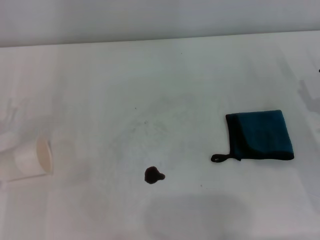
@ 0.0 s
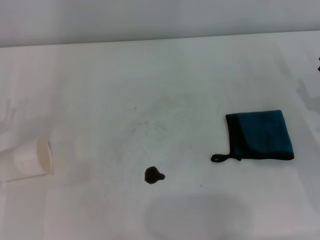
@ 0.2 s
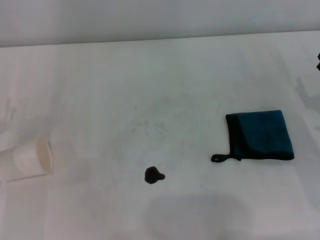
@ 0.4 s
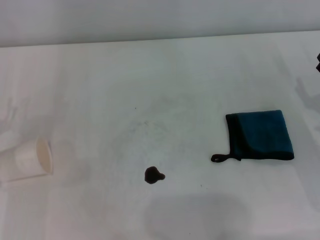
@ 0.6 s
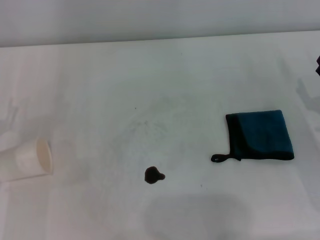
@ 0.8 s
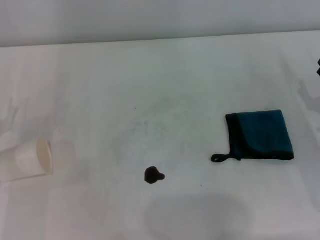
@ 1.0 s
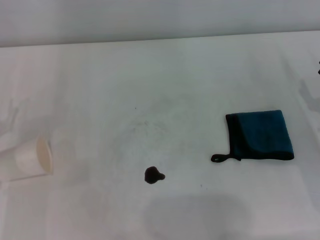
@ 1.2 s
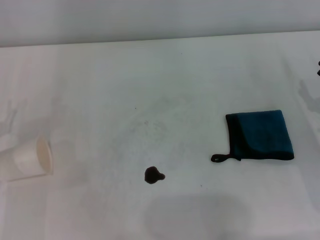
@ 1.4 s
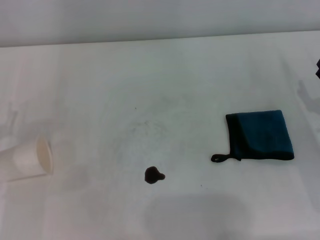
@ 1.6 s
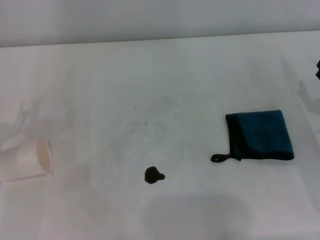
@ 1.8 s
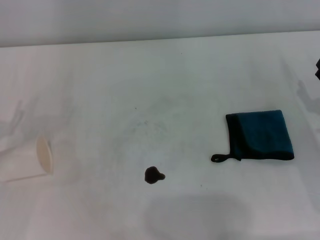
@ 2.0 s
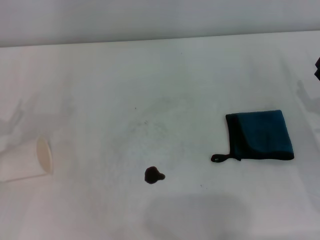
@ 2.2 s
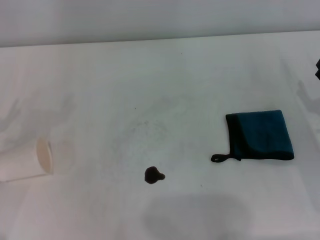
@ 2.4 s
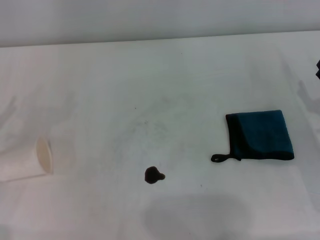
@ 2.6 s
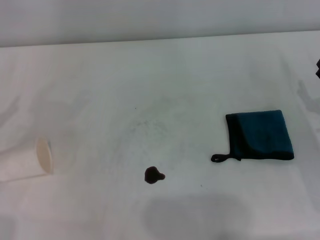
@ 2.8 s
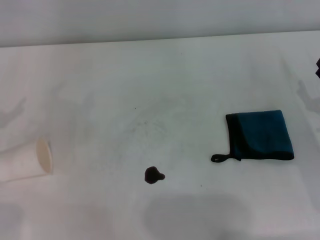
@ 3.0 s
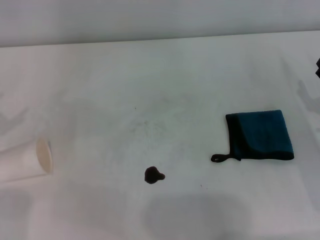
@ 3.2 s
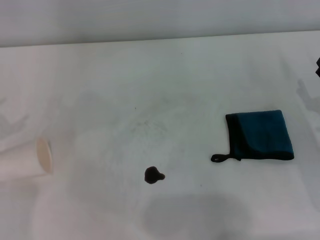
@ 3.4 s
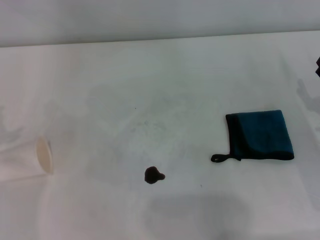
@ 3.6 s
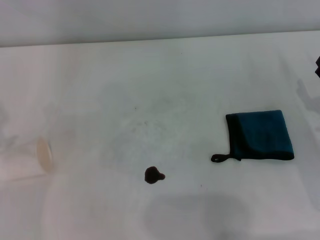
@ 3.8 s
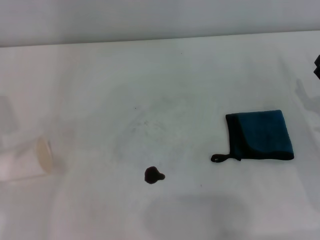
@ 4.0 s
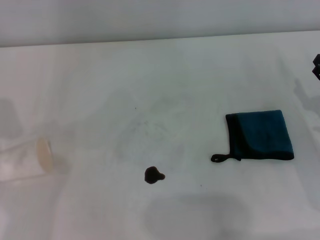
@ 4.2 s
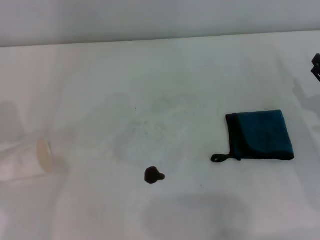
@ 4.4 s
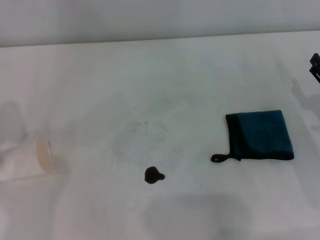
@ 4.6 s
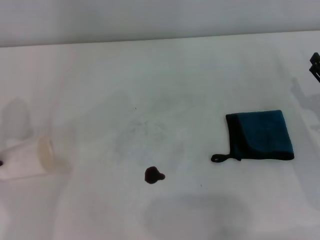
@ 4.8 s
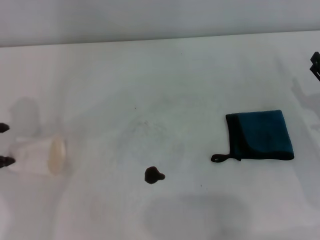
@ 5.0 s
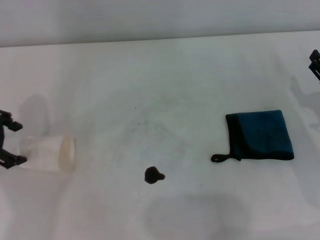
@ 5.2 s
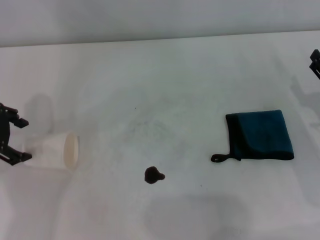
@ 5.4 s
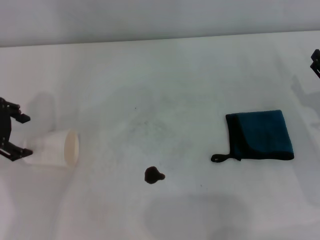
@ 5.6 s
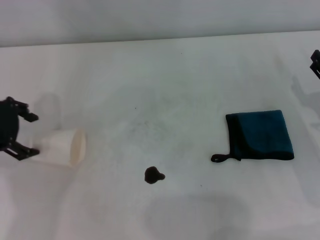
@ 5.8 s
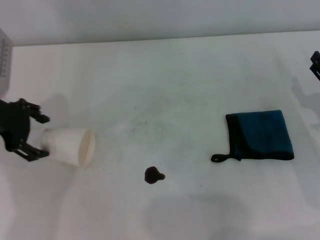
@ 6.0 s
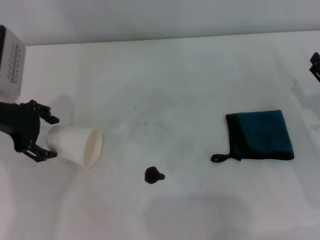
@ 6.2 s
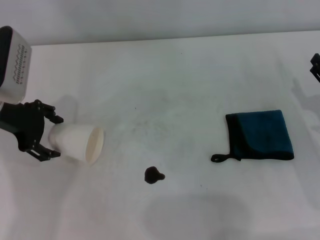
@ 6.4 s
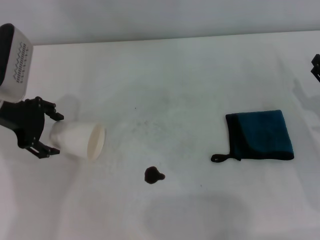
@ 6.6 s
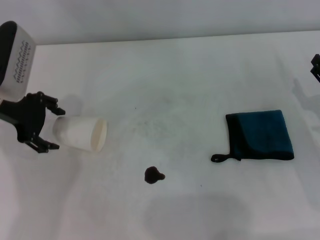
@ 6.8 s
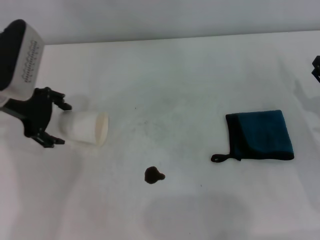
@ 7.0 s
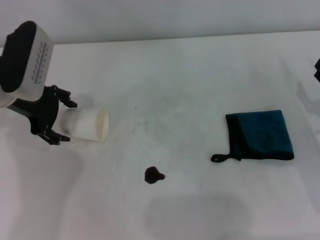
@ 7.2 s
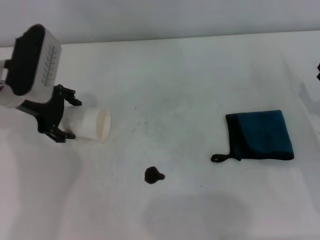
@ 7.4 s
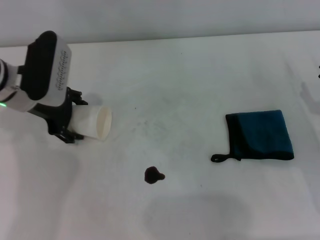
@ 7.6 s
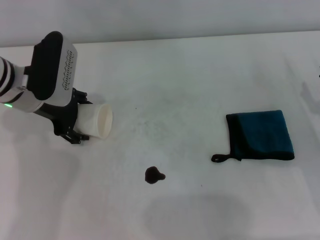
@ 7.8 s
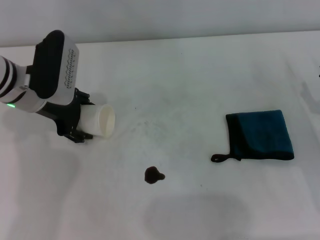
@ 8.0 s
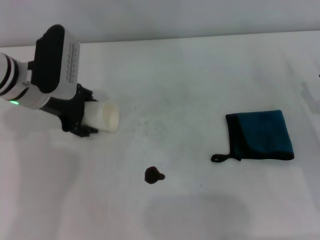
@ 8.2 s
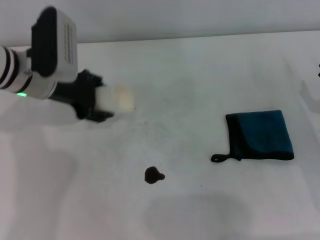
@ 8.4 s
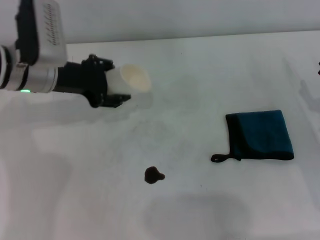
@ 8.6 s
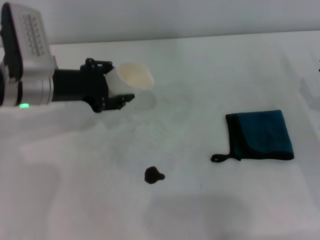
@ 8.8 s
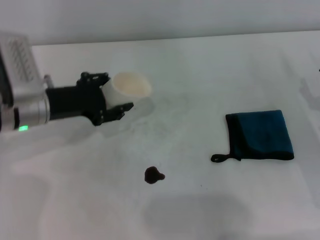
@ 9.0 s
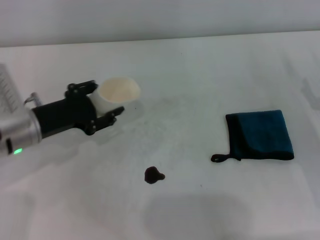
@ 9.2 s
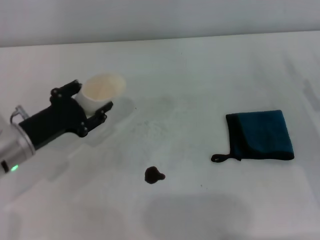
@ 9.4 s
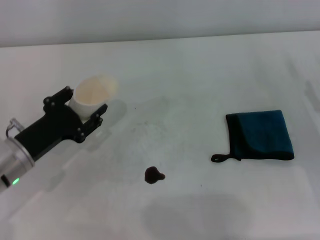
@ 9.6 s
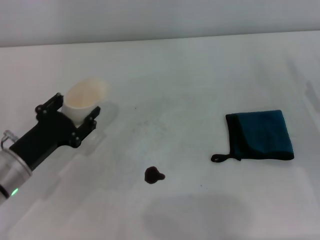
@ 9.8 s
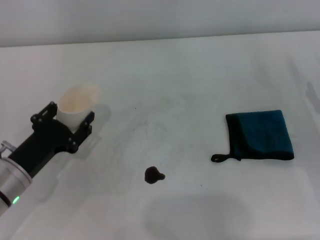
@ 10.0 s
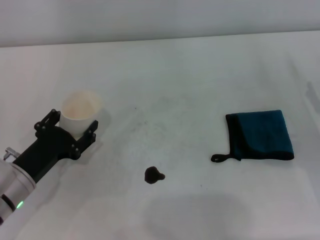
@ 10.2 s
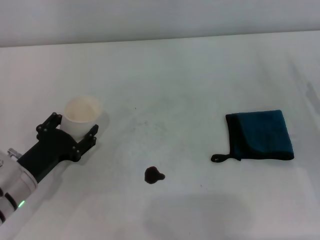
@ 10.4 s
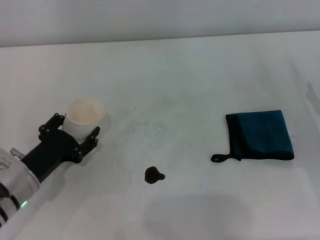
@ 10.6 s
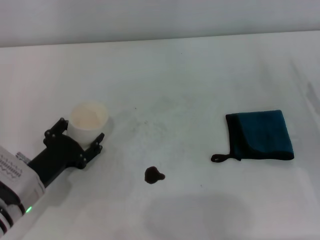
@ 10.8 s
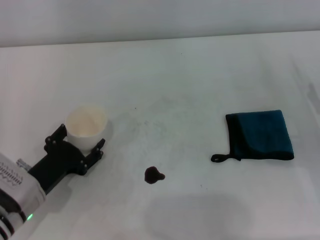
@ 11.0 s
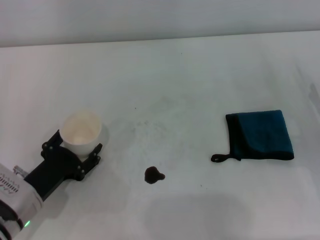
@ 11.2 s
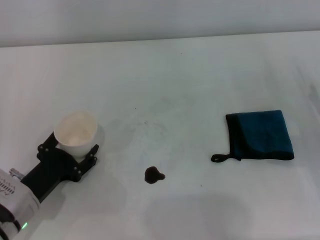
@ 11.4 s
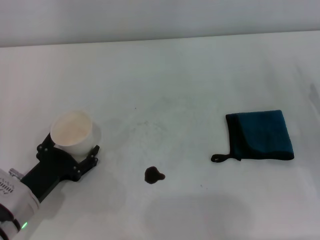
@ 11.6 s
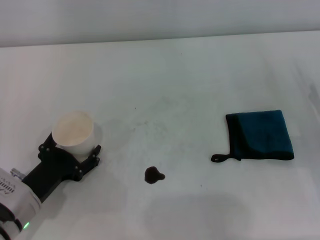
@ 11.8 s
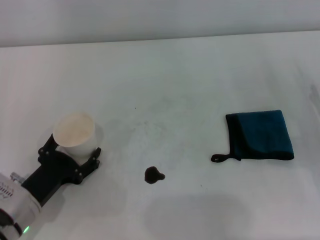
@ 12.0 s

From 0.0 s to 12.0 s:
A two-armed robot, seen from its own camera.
Step, from 0.0 s to 7.8 s: Grasp the paper cup with the left gripper.
Step, from 8.0 s to 11.8 s: Stand the paper cup upright with the left gripper.
From 0.0 s to 1.6 s: Neither gripper changes place.
From 4.4 s to 6.0 s: The left gripper travels to the right by about 10 cm.
From 6.0 s to 7.6 s: The left gripper is displaced to the right by about 5 cm.
From 7.6 s to 9.0 s: The left gripper closes its fingers.
From 9.0 s to 10.4 s: The left gripper shifts roughly 15 cm backward and downward.
From 10.4 s to 12.0 s: The left gripper opens up.

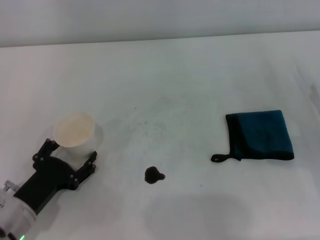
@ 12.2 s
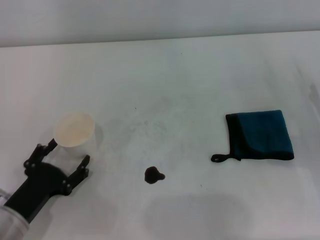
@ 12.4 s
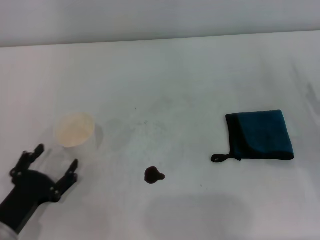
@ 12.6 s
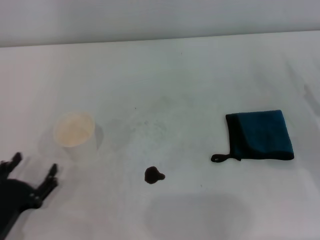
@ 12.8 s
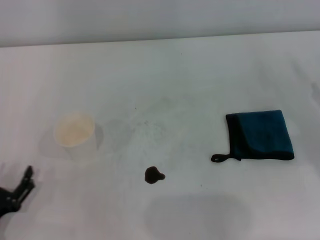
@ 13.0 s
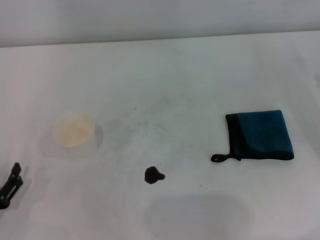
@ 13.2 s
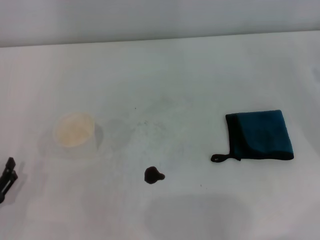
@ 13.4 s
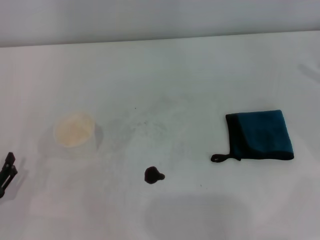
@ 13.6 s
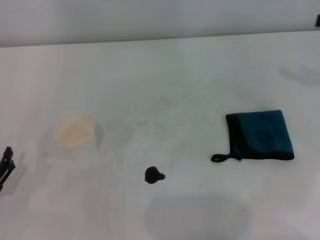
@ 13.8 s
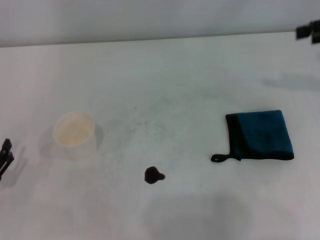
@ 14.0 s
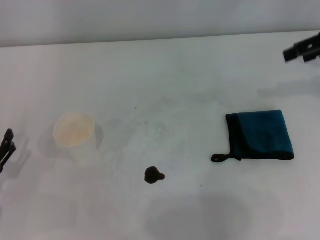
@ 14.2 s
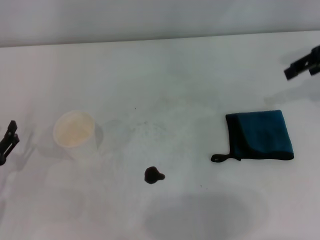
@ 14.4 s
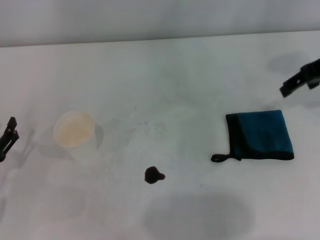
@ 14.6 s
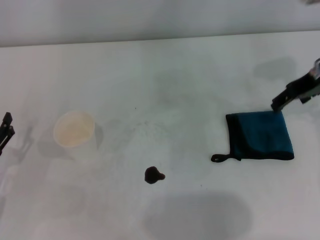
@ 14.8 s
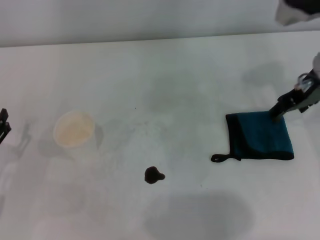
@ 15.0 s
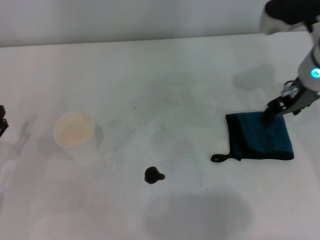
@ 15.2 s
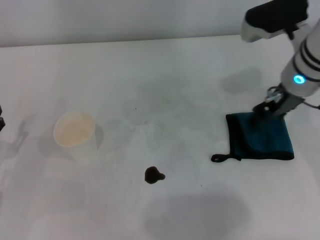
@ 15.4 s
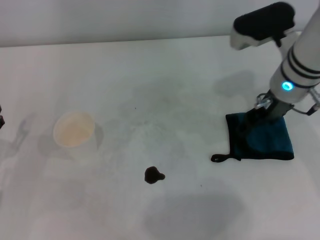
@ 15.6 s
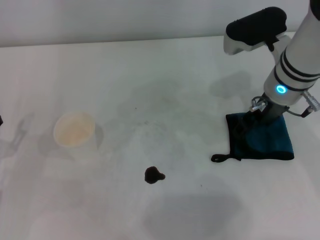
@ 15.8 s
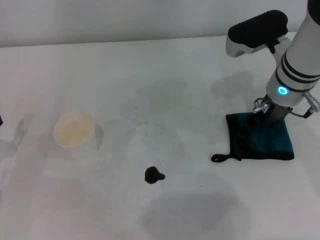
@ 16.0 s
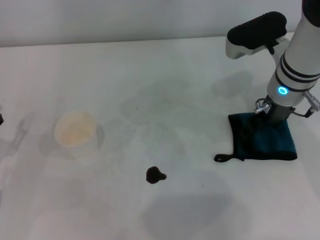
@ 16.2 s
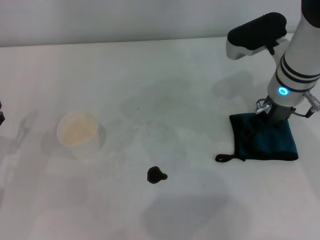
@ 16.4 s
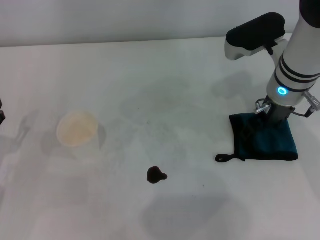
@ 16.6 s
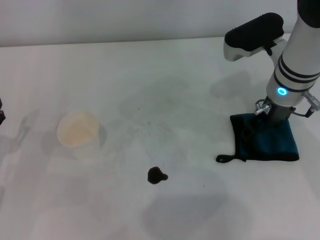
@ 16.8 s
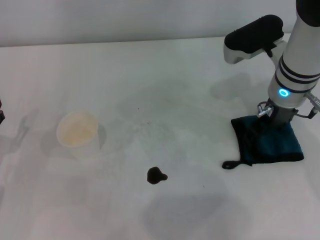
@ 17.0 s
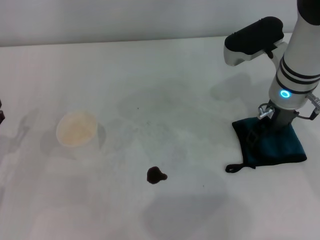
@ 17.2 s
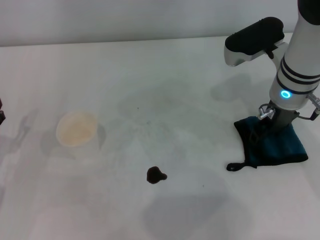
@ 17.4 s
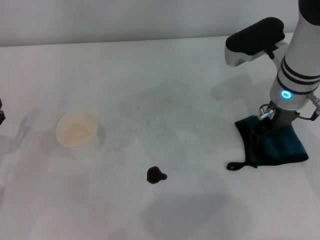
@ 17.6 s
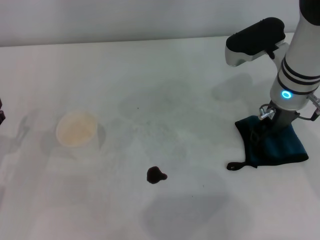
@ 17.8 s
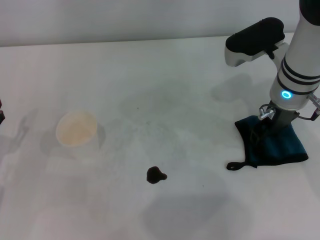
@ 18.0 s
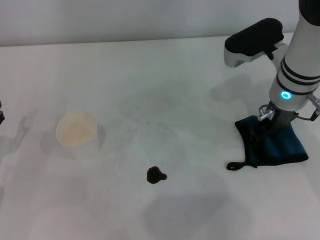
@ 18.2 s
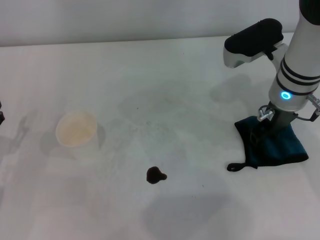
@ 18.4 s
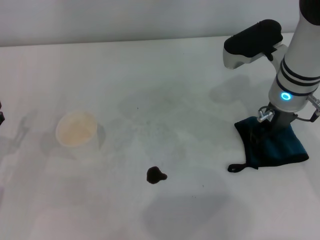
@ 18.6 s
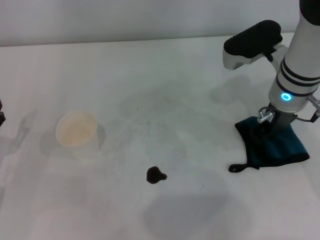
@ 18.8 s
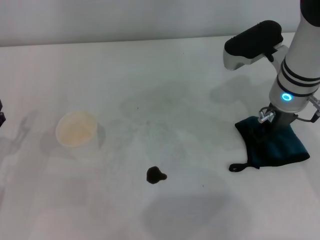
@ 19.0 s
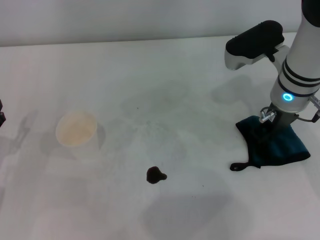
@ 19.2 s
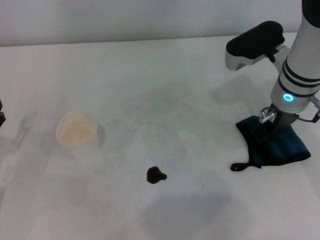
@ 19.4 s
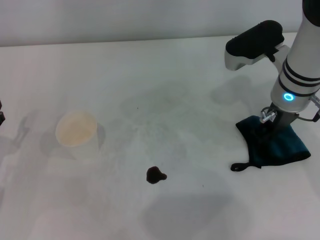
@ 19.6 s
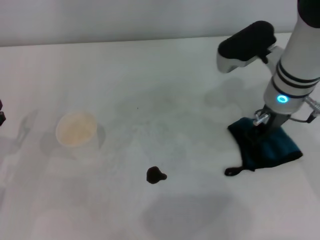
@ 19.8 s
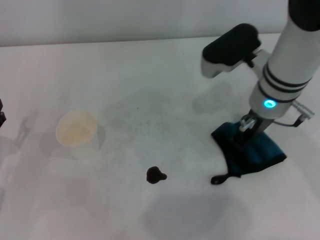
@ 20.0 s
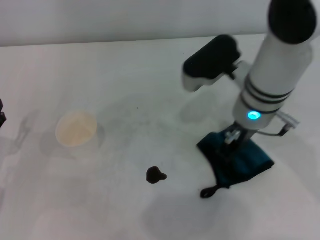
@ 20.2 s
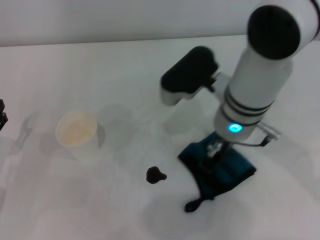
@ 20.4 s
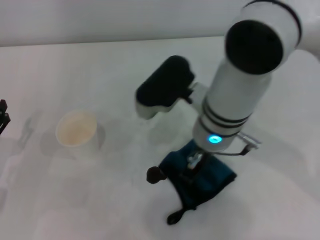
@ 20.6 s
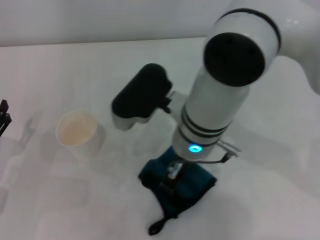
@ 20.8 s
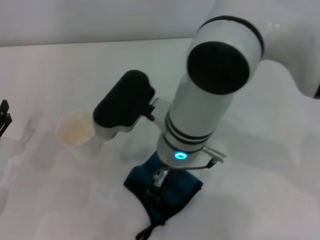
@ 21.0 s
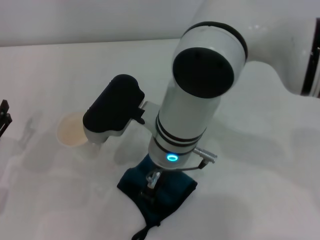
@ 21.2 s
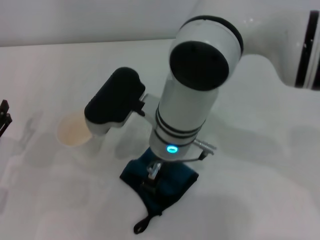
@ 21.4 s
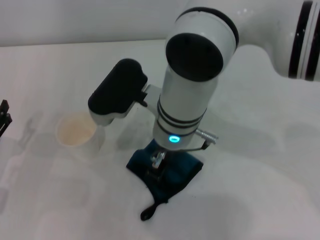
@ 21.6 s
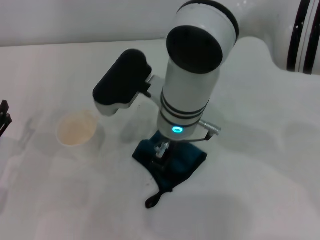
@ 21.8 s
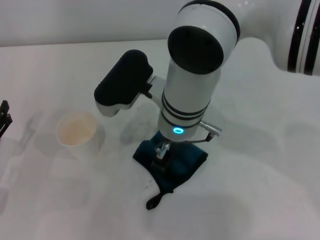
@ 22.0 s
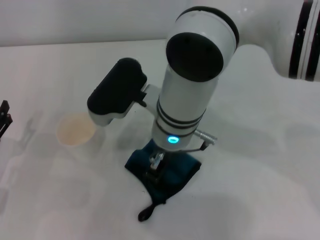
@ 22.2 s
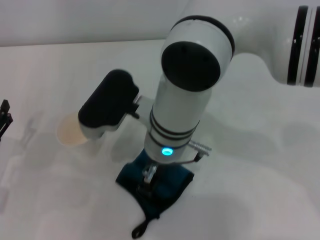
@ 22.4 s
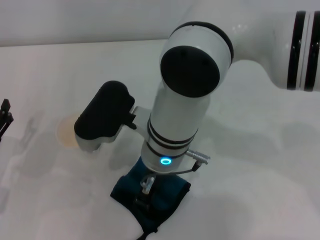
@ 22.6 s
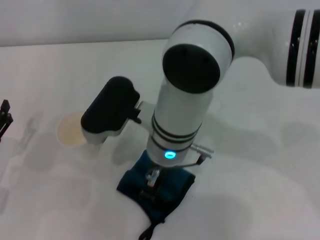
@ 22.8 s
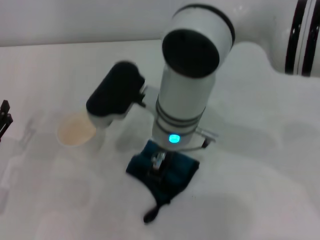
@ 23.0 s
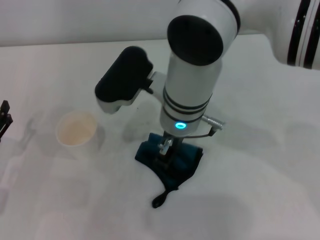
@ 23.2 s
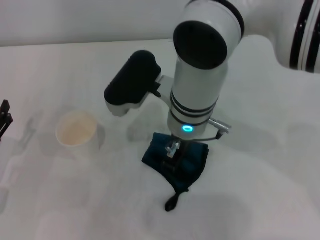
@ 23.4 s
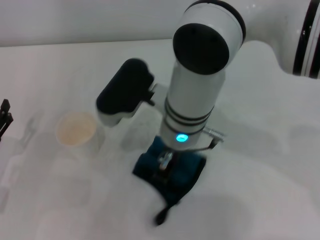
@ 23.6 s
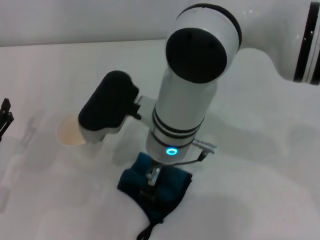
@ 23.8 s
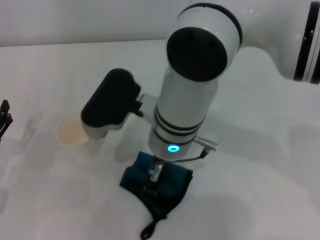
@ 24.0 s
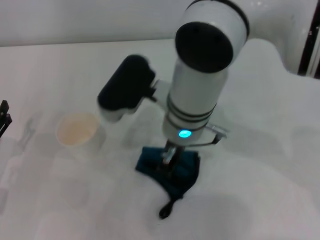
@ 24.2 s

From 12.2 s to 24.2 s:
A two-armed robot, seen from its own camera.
Step, from 12.2 s to 16.6 s: Grasp the rag with the right gripper.
From 12.2 s to 13.8 s: The left gripper travels to the left by about 10 cm, while the right gripper heads upward and forward, covering approximately 20 cm.
From 13.8 s to 15.2 s: The left gripper shifts roughly 5 cm forward. The right gripper moves to the left, some 20 cm.
From 15.2 s to 16.6 s: The right gripper moves roughly 5 cm.
From 16.6 s to 18.2 s: The right gripper closes its fingers.
From 18.2 s to 19.8 s: The right gripper closes up.
From 19.8 s to 21.2 s: The right gripper goes some 15 cm to the left.
From 21.2 s to 22.6 s: The grippers move only a little.
